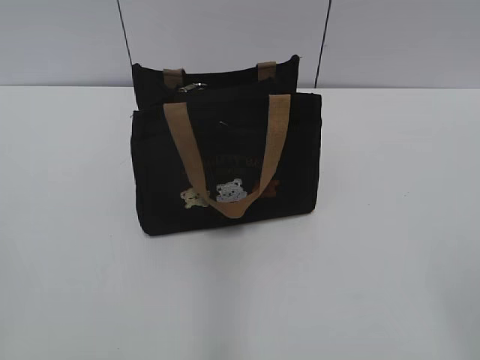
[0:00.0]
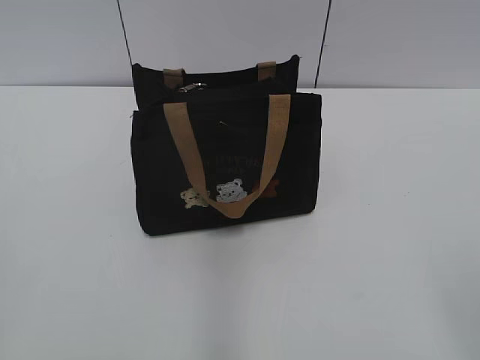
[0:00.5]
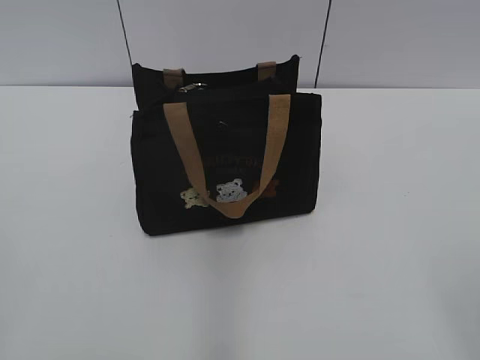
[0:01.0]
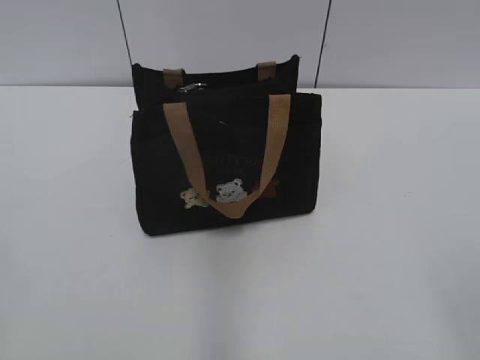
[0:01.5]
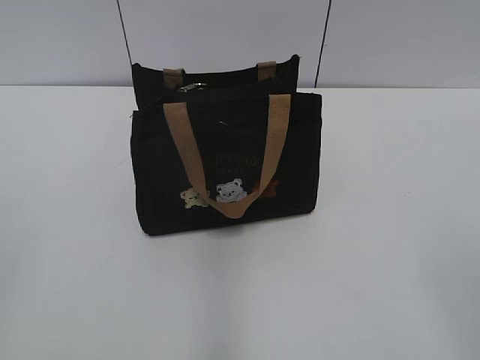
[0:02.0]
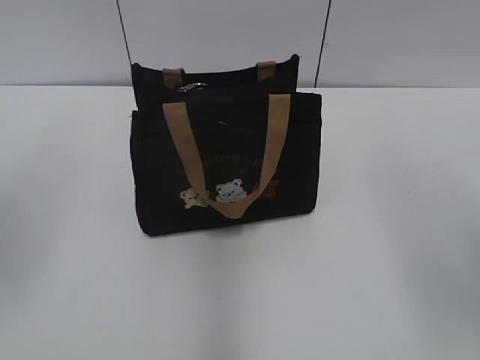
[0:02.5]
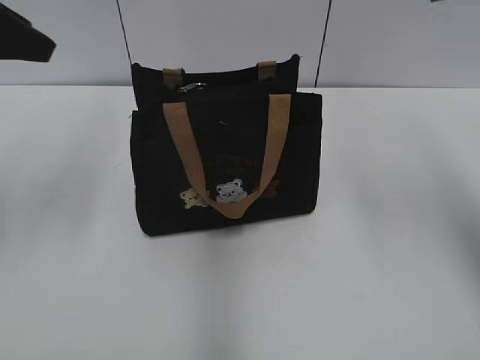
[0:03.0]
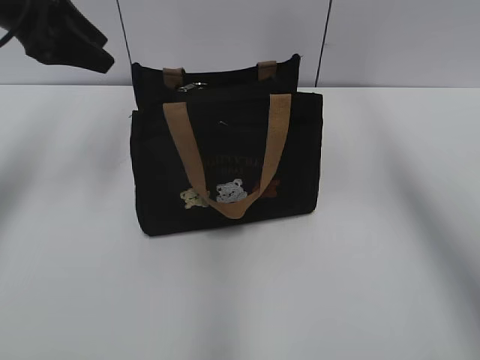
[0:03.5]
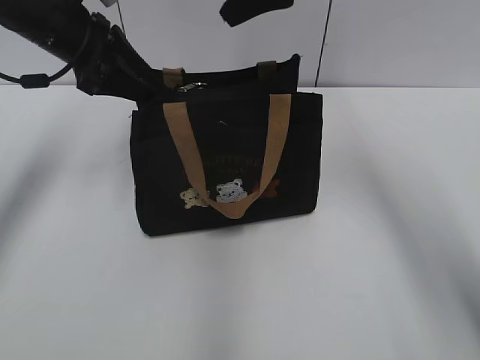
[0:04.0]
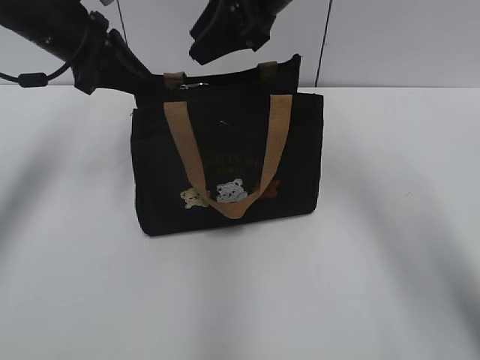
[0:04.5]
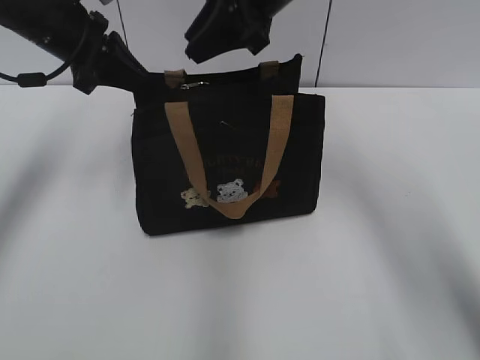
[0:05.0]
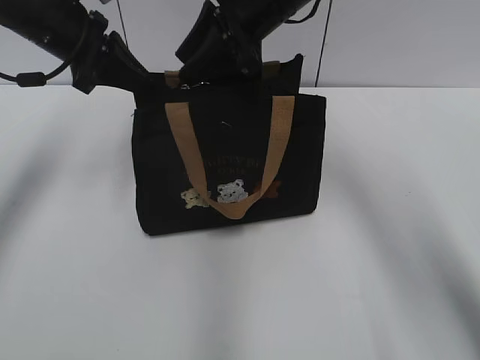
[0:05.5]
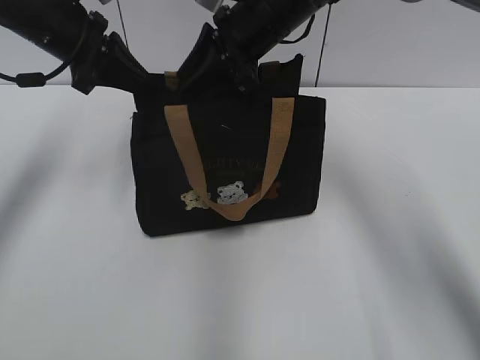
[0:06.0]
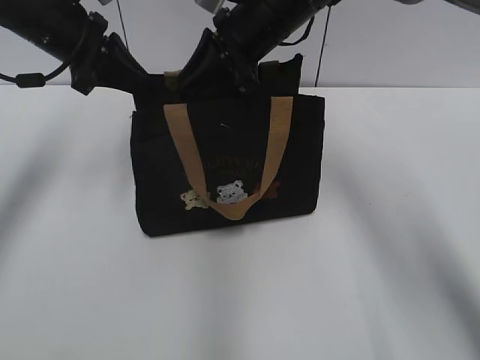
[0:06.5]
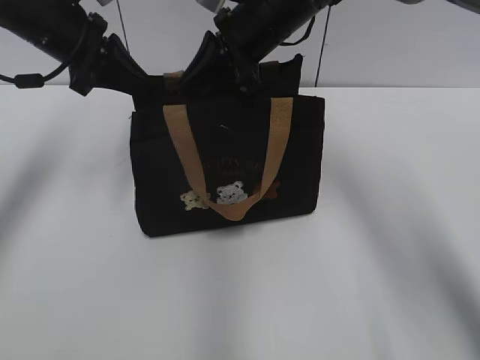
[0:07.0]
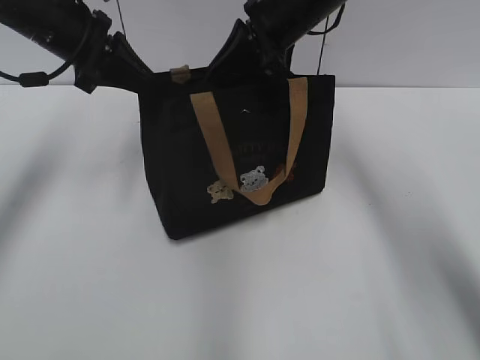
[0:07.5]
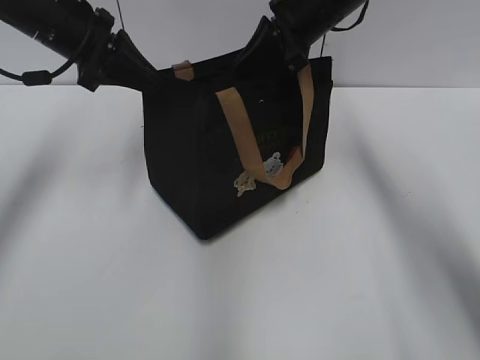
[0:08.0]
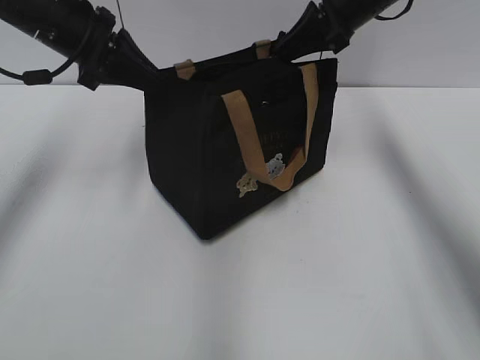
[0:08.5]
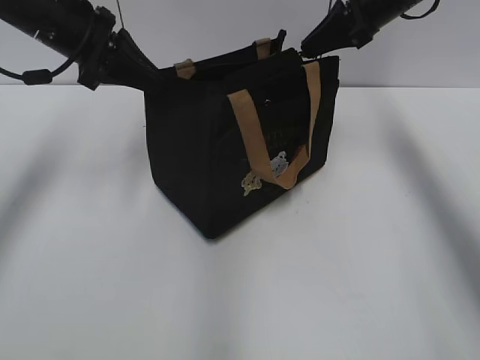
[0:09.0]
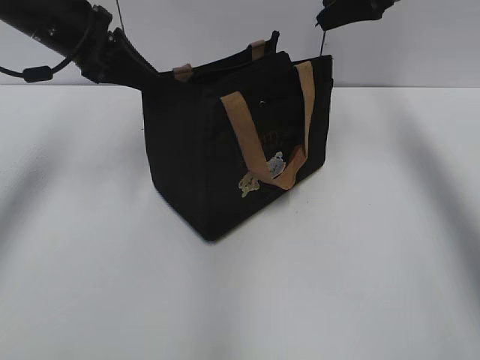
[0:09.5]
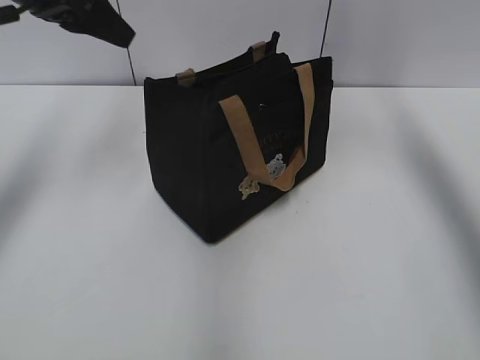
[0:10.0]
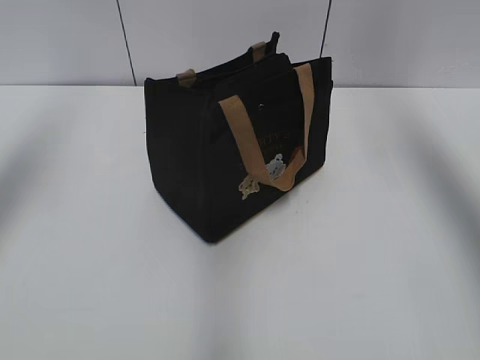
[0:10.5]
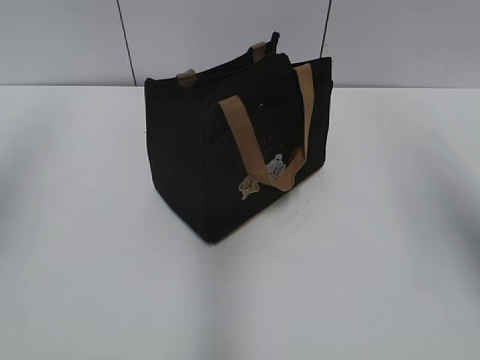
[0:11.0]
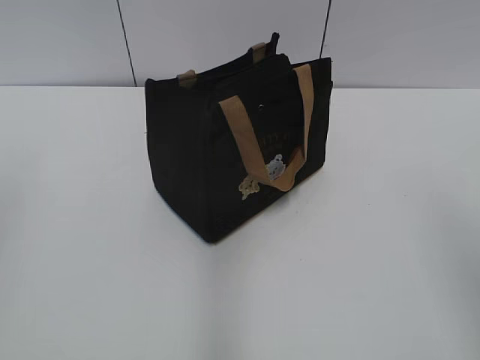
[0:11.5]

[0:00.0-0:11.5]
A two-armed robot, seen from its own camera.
Step, 0:00.0 to 0:09.0: Zip up the bag with your right hand.
0:02.0 to 0:04.0: The right gripper shifts some 40 cm forward and to the left, and closes its fingers. The left gripper travels forward by about 40 cm.
0:04.0 to 0:06.0: The left gripper closes up, while the right gripper goes about 10 cm downward.
0:06.0 to 0:07.5: The right gripper closes its fingers.
0:07.5 to 0:09.5: The right gripper heads to the right, covering approximately 15 cm, and opens.
0:09.5 to 0:11.5: The grippers both shift backward by roughly 35 cm. The left gripper opens its fingers.
